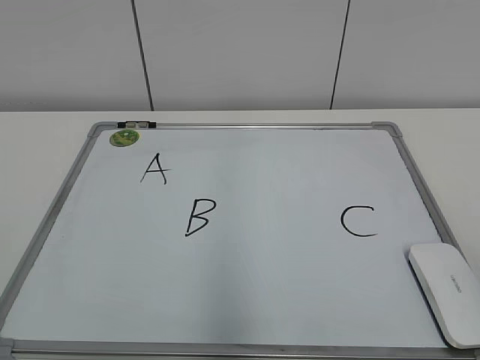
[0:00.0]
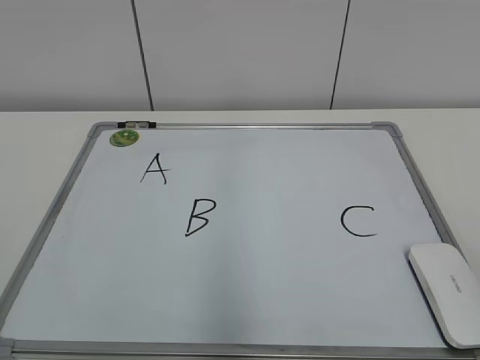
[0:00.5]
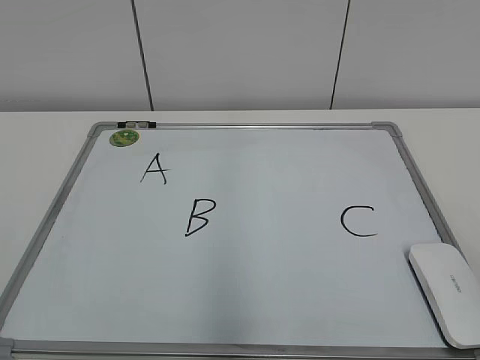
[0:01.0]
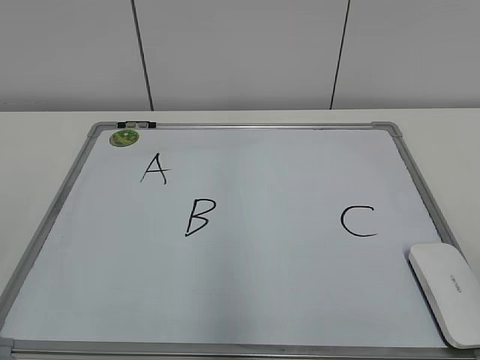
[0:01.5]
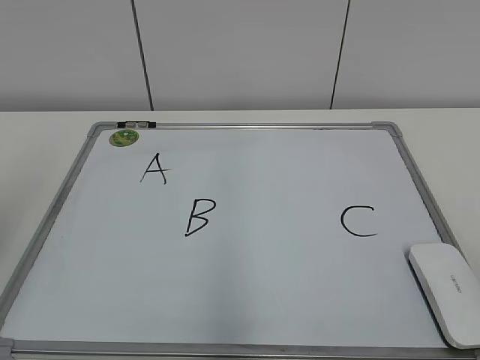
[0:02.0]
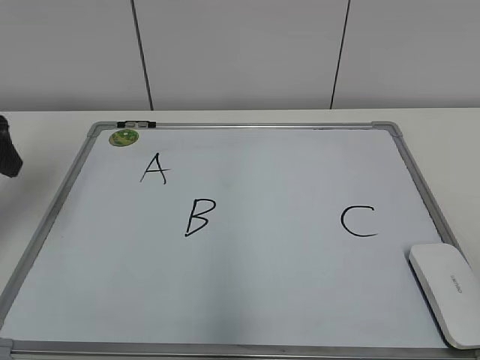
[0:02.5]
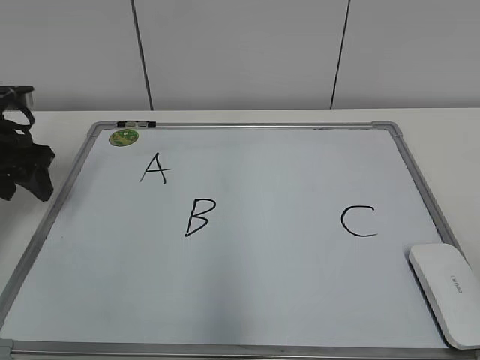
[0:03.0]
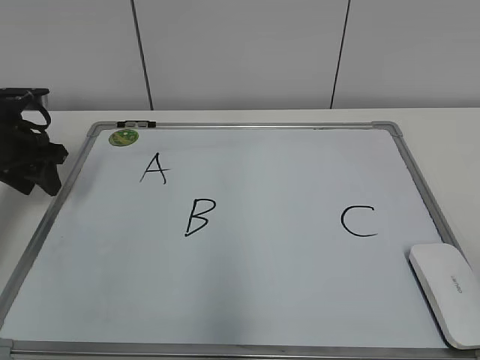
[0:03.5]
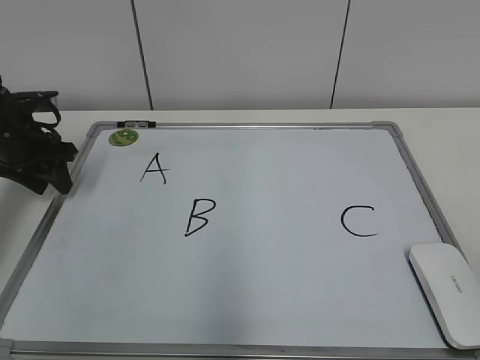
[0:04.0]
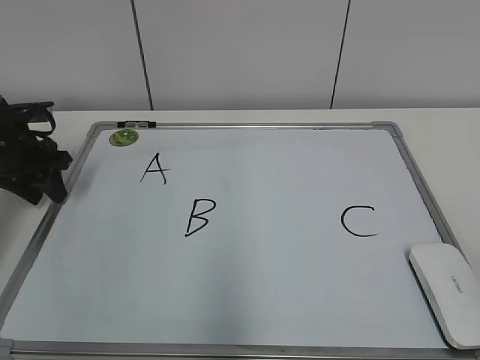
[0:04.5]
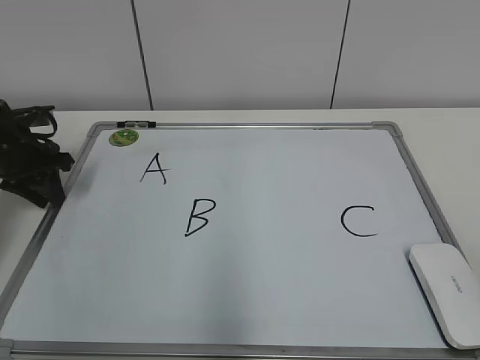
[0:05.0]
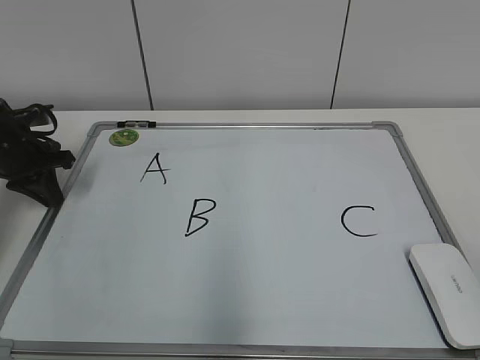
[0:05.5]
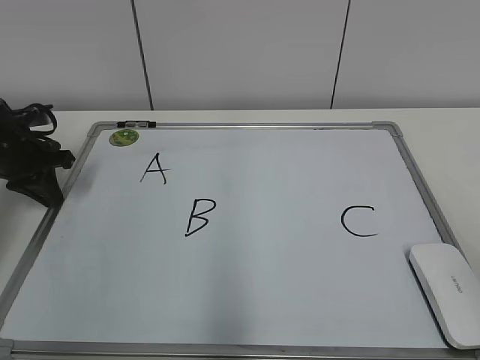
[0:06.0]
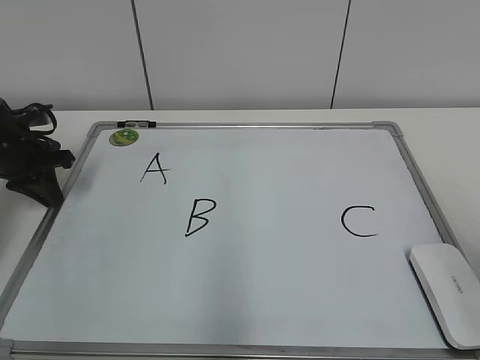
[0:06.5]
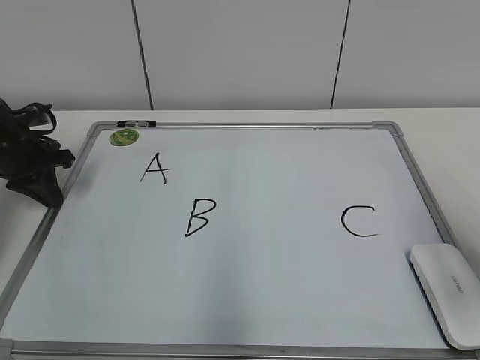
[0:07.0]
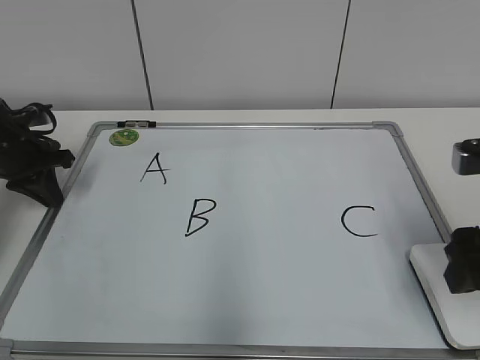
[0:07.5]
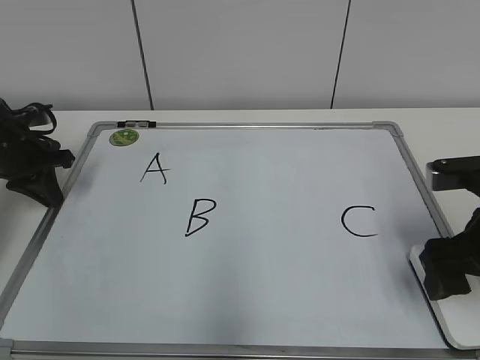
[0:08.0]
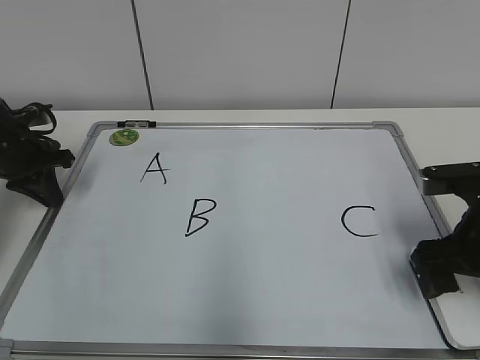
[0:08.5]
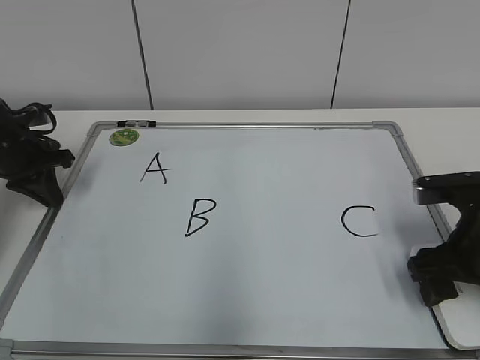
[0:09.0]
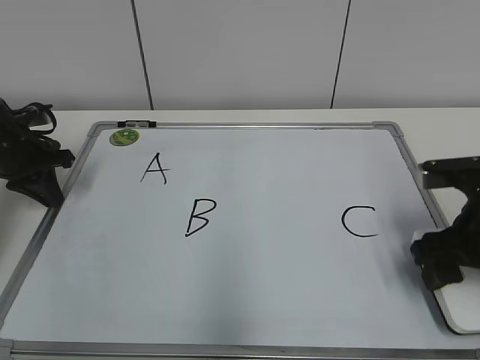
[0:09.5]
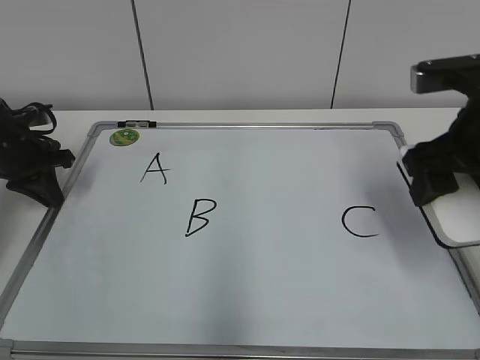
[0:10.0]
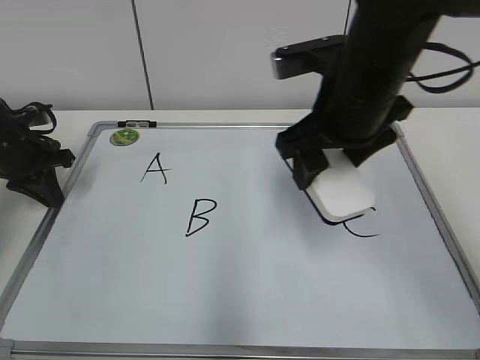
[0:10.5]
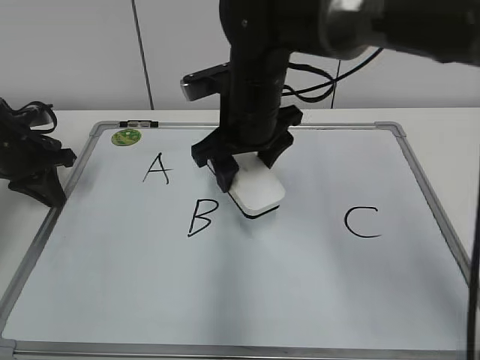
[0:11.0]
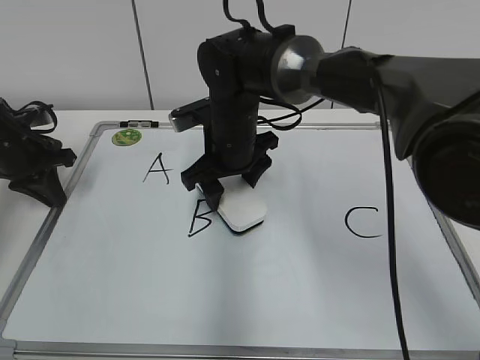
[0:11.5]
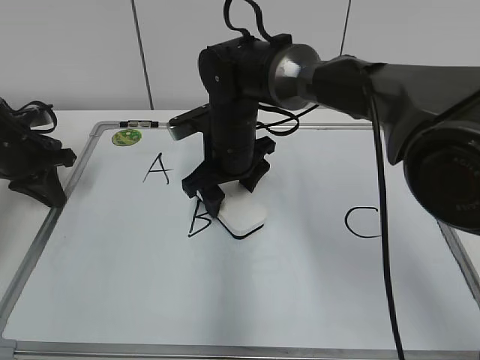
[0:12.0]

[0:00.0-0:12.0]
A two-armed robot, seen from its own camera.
Task of the whole recording: pick up the eraser on the blackboard and erase the letter "B".
Step, 0.0 to 5.0 s: Hold the drawing board steady with your left hand.
Step, 6.0 to 9.0 s: Grab the eraser with your right hand.
2.0 to 4.0 s: The left gripper travels forward and downward by roughly 30 cm, and closes up.
4.0 to 6.0 s: The left gripper closes its fingers.
6.0 to 8.0 s: The right gripper is displaced forward and downward by about 20 cm, and opens up.
8.0 to 10.0 s: The right gripper moves upward, roughly 5 cm, and closes.
10.0 to 12.0 s: The right gripper travels to the left, forward and downward by approximately 30 cm.

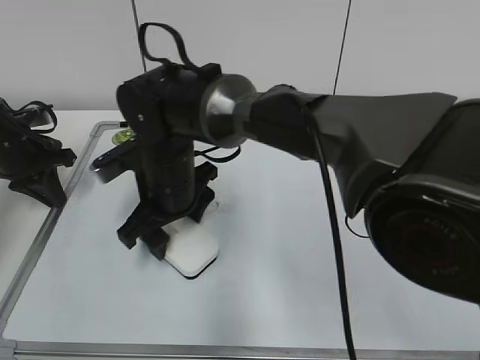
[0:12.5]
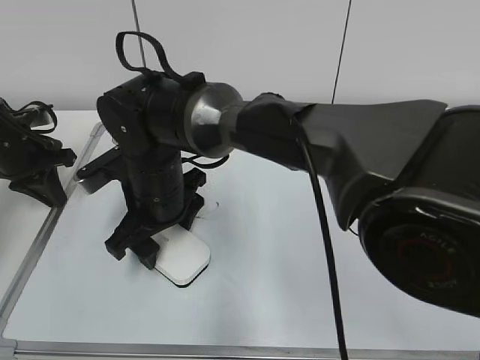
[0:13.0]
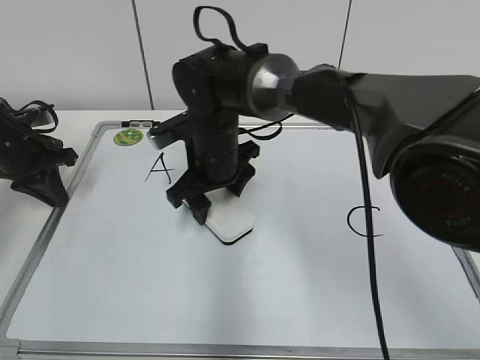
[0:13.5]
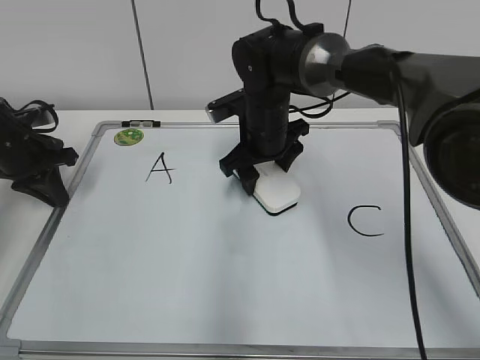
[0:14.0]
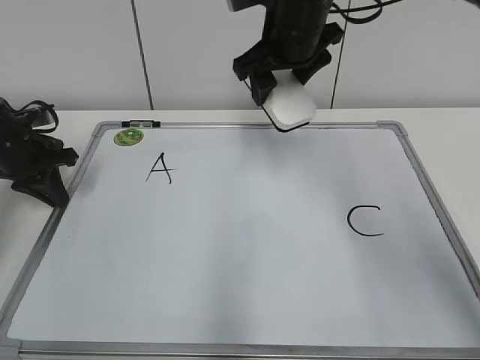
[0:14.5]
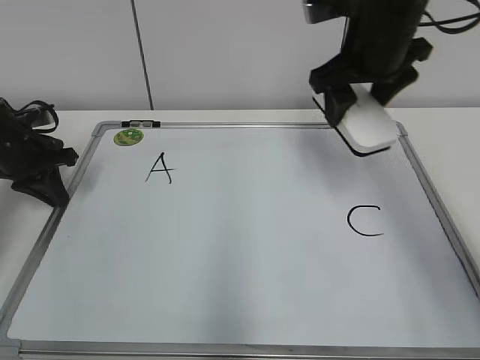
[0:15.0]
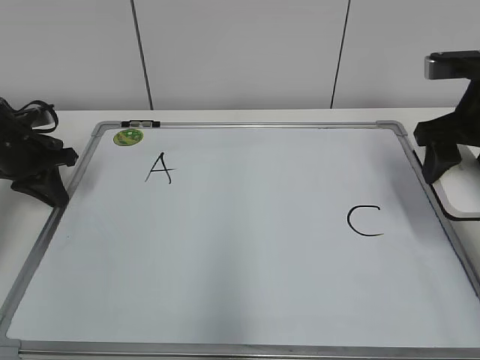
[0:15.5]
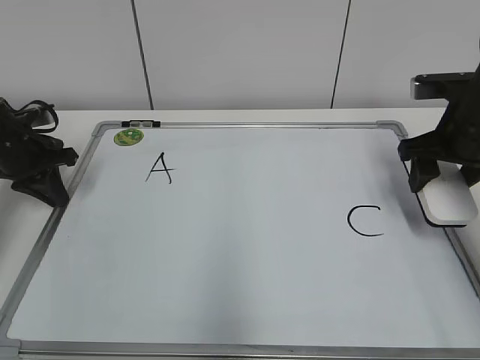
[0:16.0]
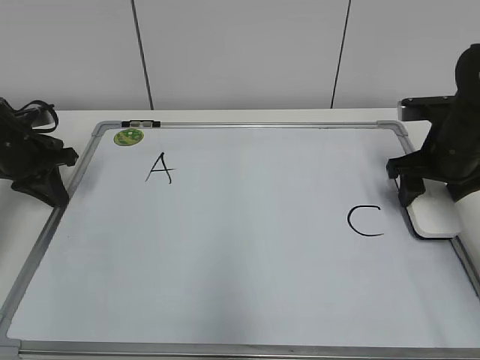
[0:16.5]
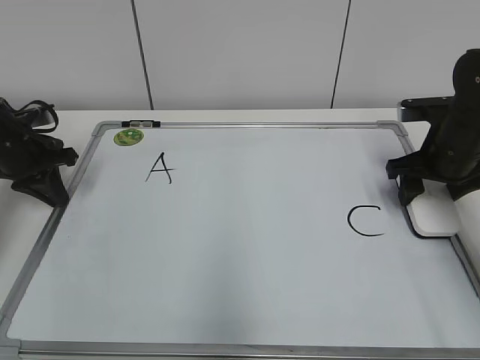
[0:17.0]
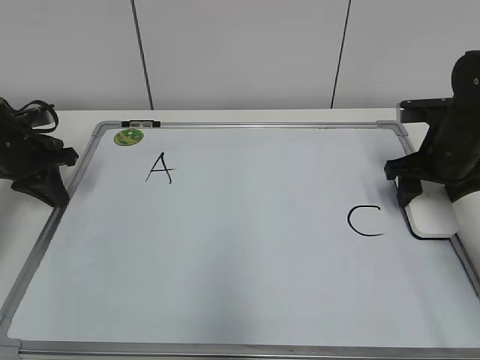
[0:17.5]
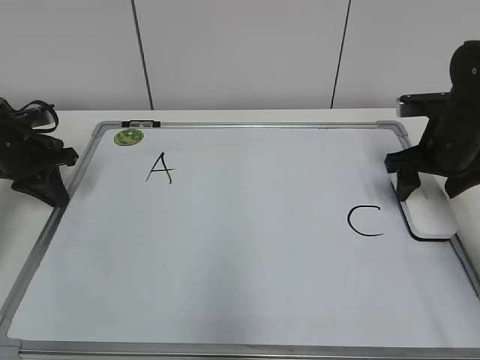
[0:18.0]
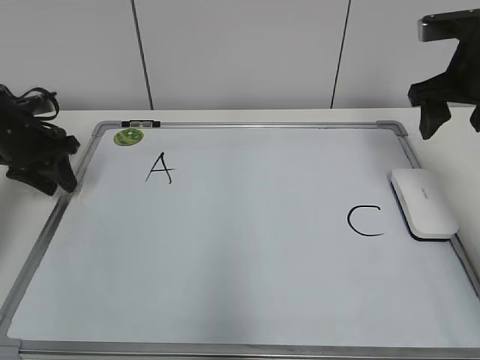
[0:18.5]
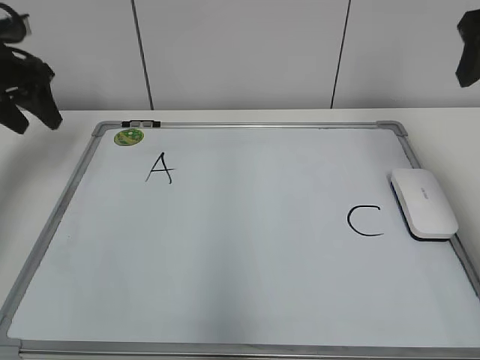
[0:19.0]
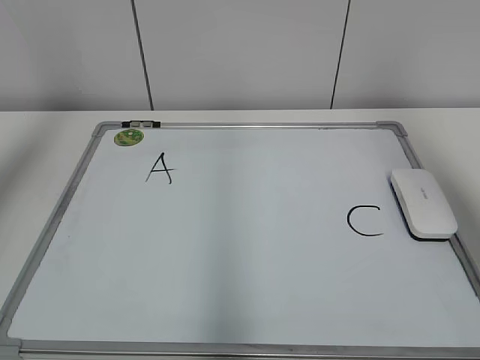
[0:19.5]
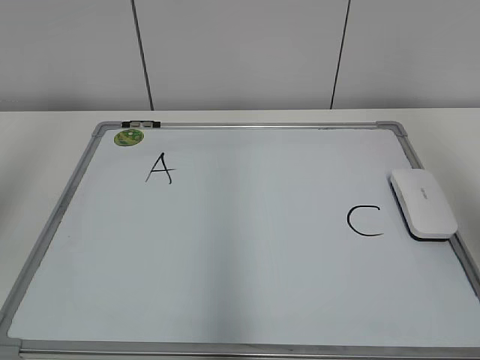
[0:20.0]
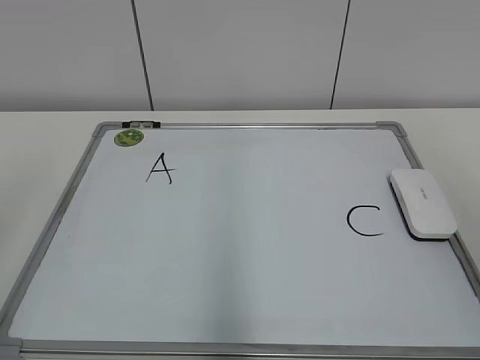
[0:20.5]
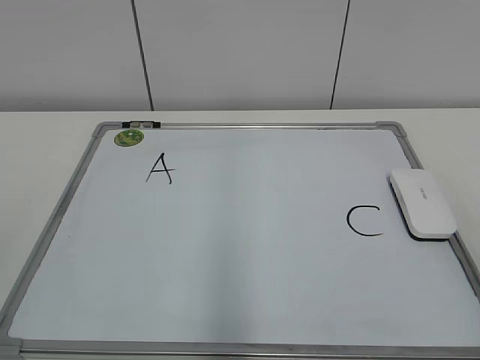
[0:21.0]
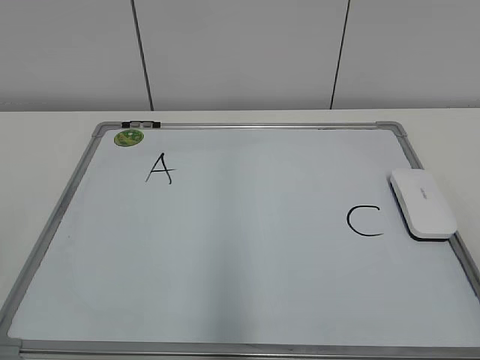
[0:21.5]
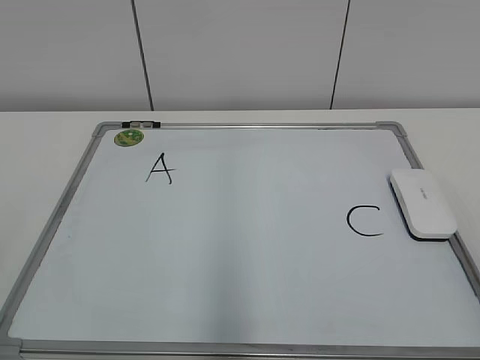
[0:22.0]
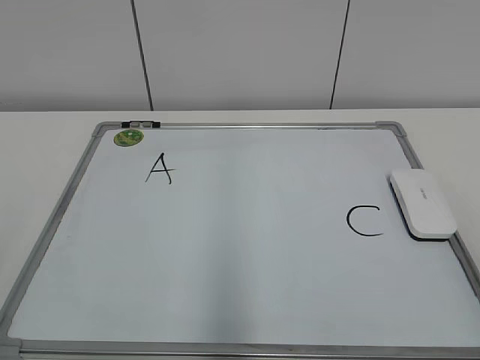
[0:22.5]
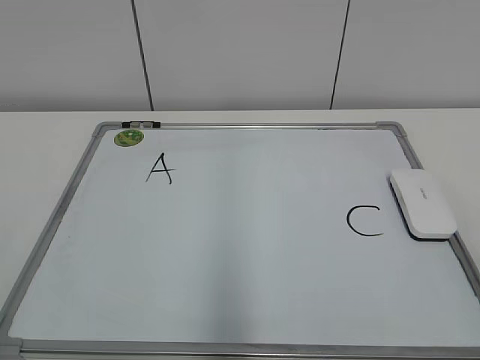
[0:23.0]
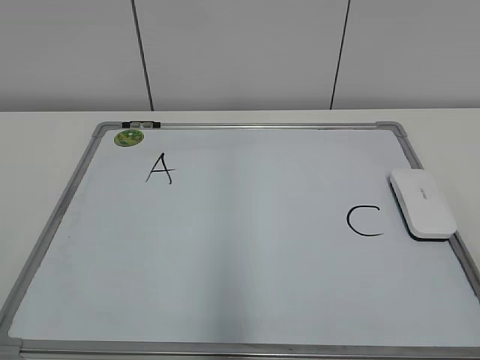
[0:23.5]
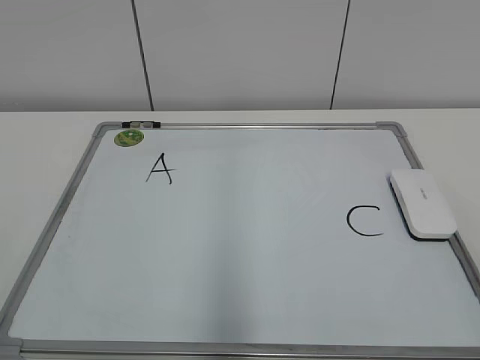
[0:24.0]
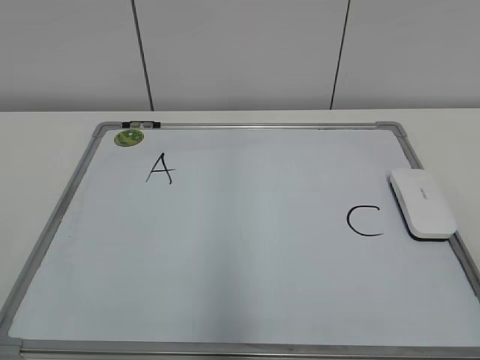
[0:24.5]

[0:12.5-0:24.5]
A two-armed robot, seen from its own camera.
Task of the whole recording: pick up the eraser on the blackboard and erase the letter "B".
Step, 14.0 to 17.5 s: Put down the eraser with your right hand.
12.5 to 14.5 s: The right gripper travels to the right, upward and forward by some 20 cm.
14.5 to 16.5 s: The right gripper is displaced to the right and downward by roughly 25 cm.
16.5 to 18.5 s: The right gripper goes about 10 cm upward, and opens up.
18.5 to 20.5 s: Both grippers move backward and upward, approximately 40 cm.

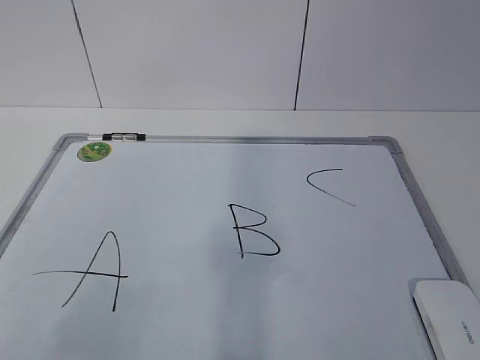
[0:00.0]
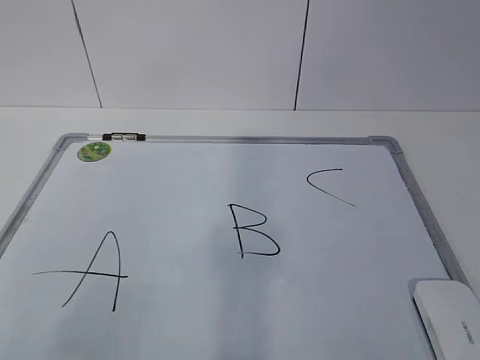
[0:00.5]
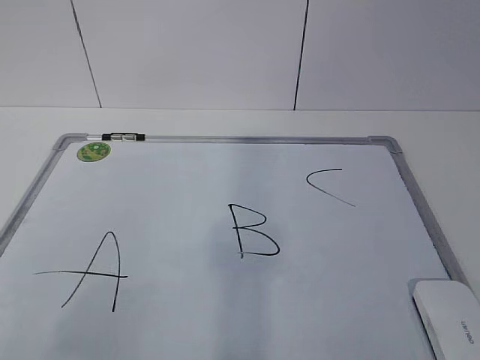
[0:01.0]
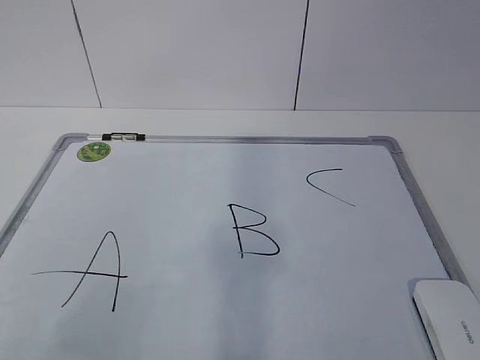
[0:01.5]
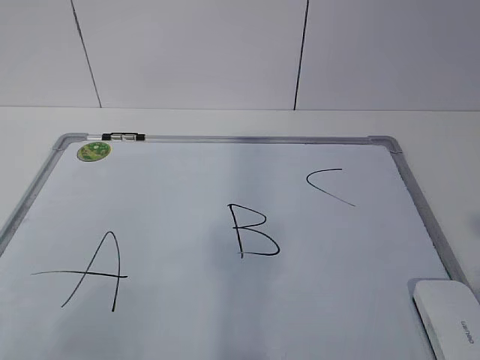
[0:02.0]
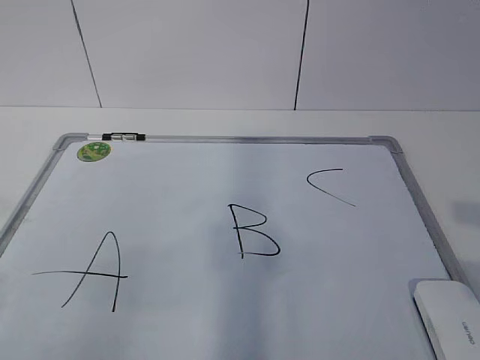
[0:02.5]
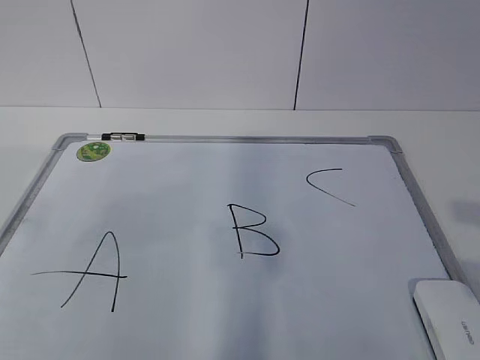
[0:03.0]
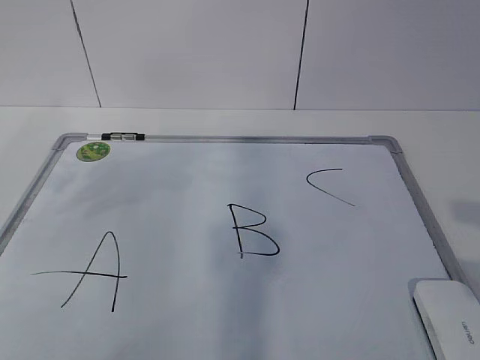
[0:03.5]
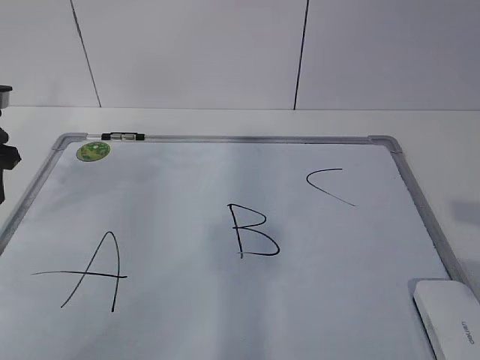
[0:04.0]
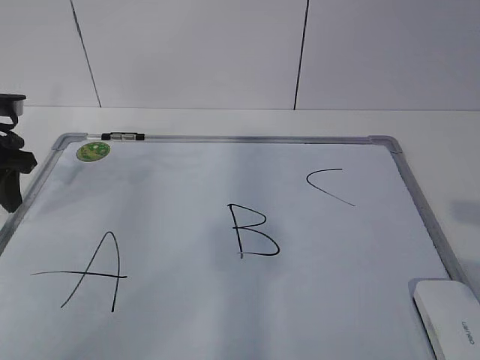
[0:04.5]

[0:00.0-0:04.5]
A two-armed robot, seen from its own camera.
Task of the whole recording: pick up the eraser on the blackboard and erase the letter "B".
2.0 to 4.5 s: The left gripper goes roughly 35 cm forward.
